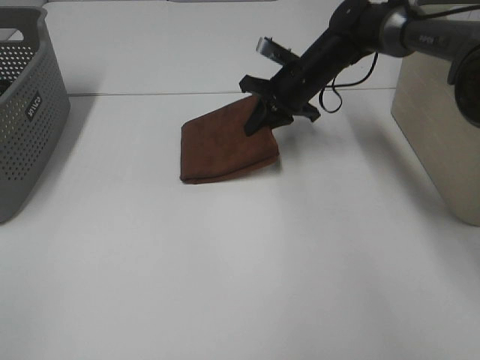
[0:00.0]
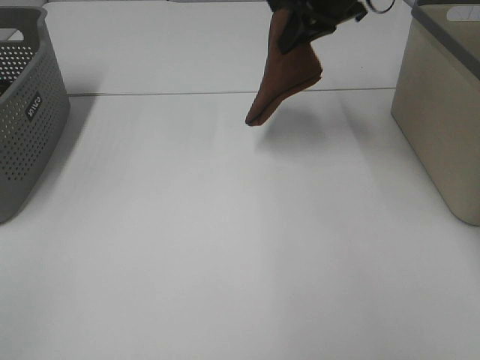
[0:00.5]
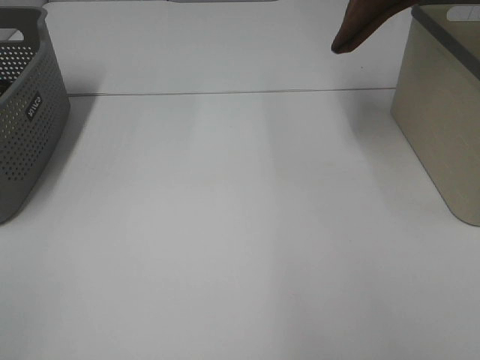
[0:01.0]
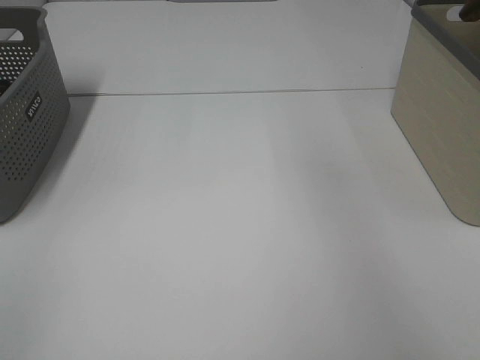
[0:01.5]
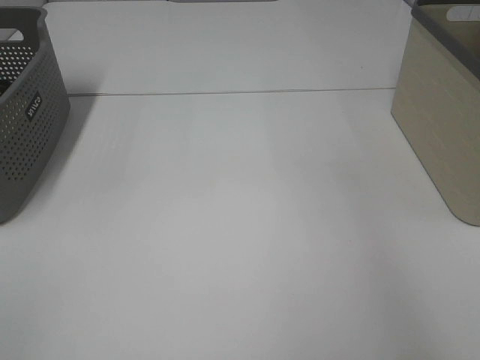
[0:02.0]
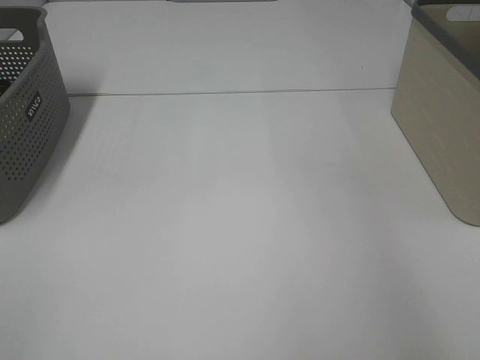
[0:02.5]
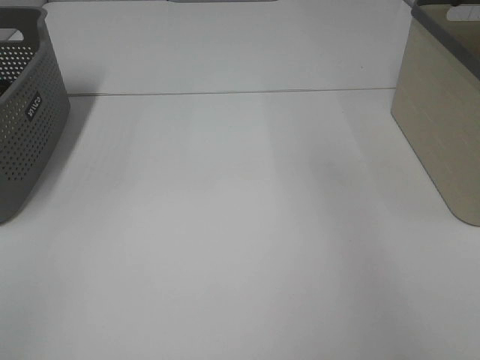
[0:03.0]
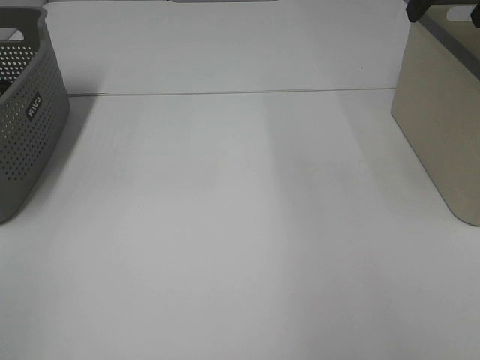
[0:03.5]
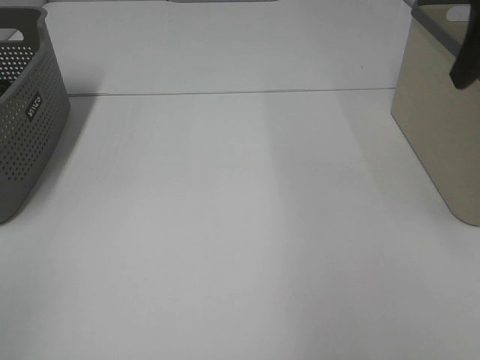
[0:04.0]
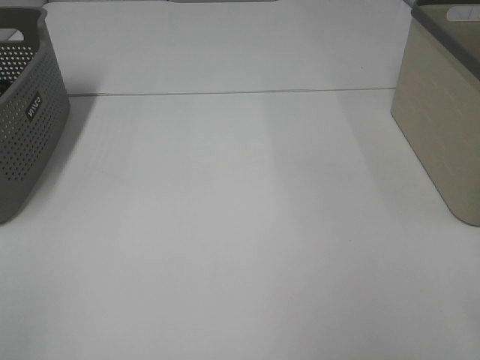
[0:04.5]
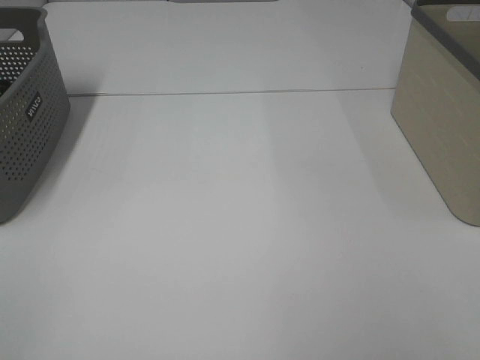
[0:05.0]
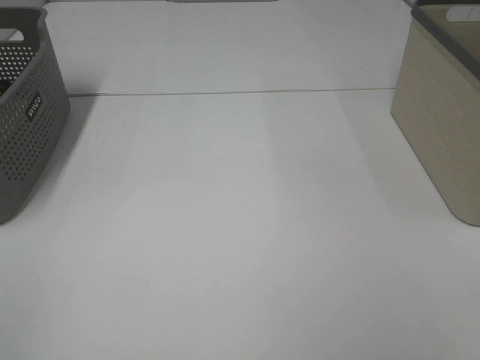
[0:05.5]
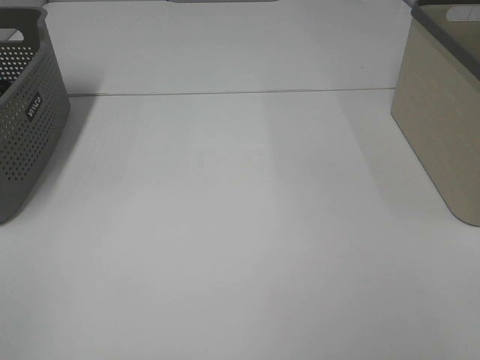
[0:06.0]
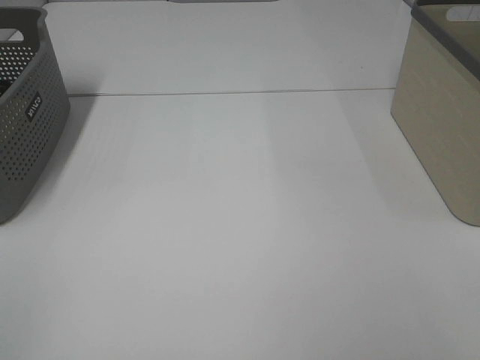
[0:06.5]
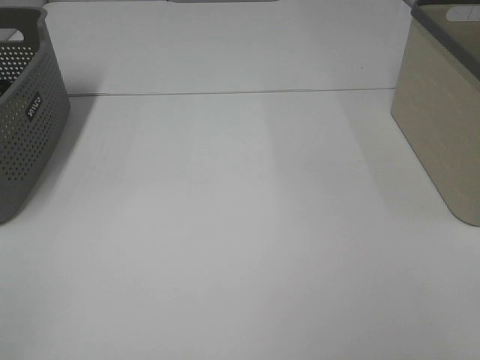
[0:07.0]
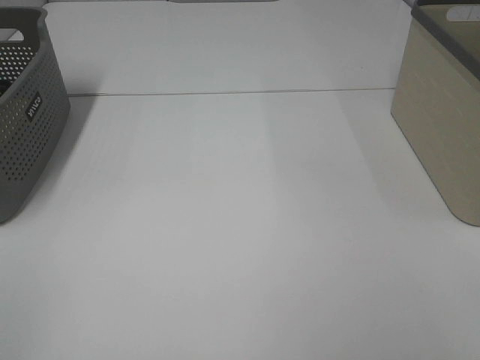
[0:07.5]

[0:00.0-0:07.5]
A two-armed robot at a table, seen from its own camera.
Step, 0:00.0 to 0:02.5: Right hand: place the brown towel in right basket.
0:00.0 to 0:02.0: The right gripper moves to the right and upward, roughly 35 cm.
0:02.0 to 0:04.0: The right gripper is displaced backward and to the left by roughly 15 cm, and opens up.
0:04.0 to 0:05.5: The right gripper is displaced backward by approximately 25 cm.
0:05.5 to 0:07.5: The two grippers keep their place.

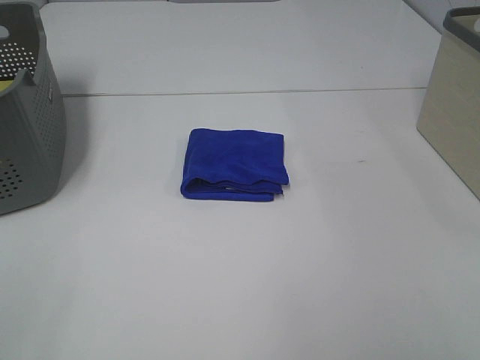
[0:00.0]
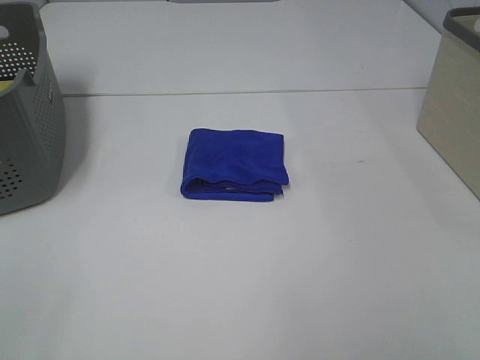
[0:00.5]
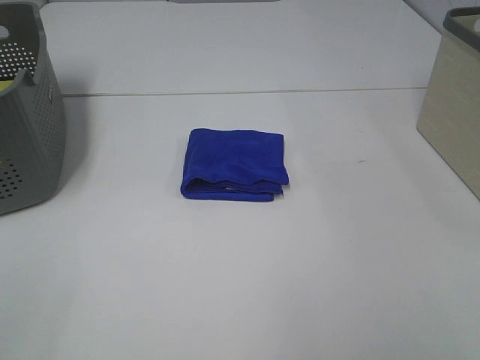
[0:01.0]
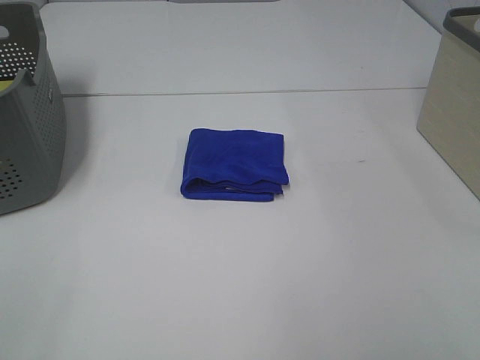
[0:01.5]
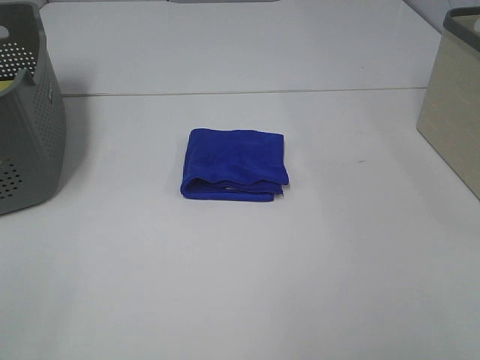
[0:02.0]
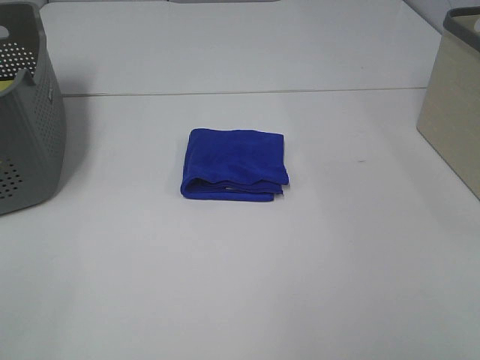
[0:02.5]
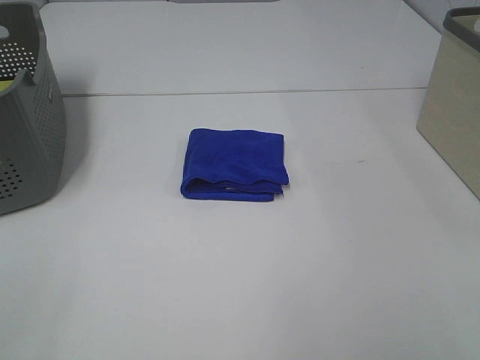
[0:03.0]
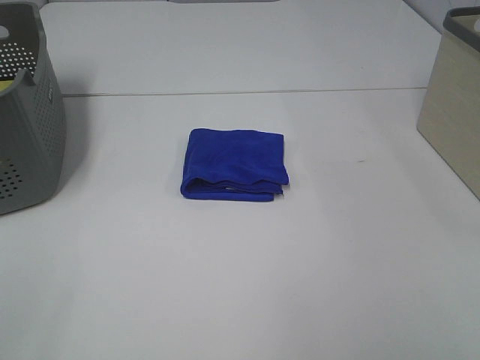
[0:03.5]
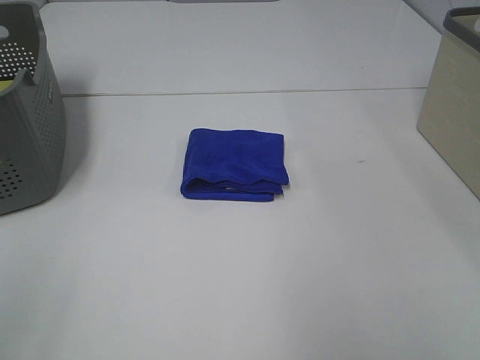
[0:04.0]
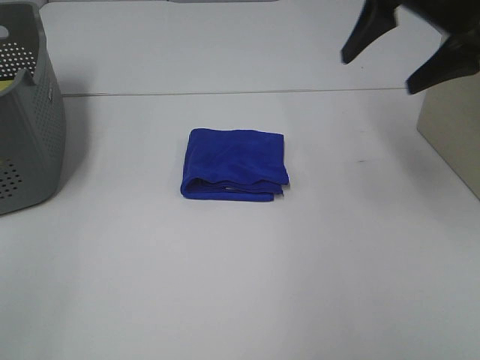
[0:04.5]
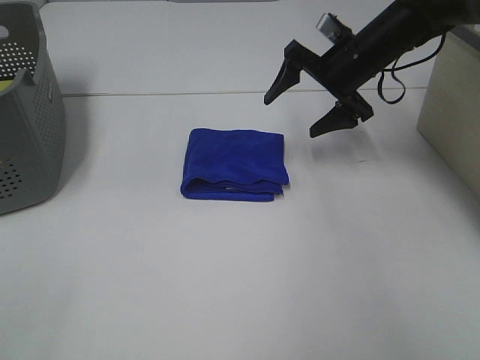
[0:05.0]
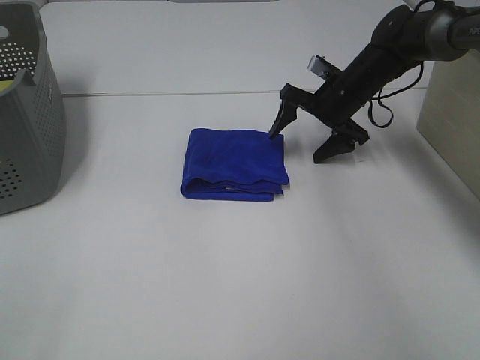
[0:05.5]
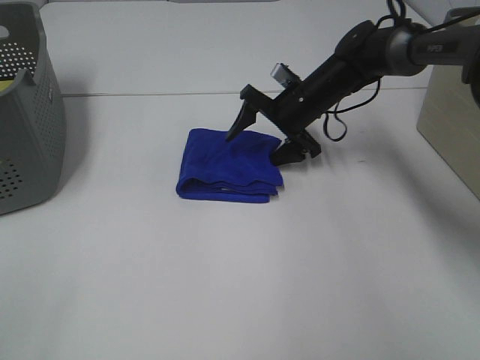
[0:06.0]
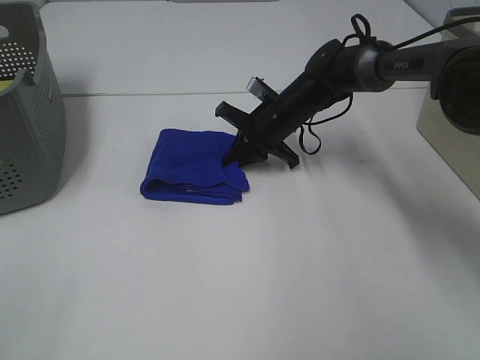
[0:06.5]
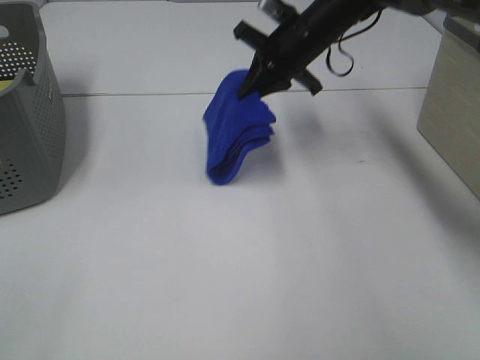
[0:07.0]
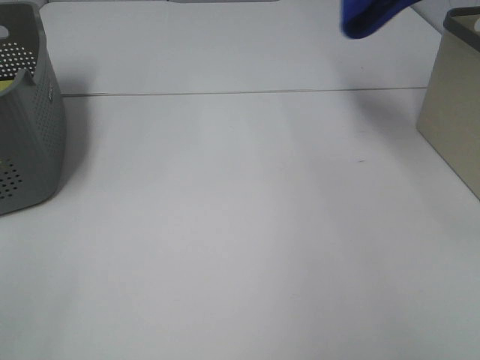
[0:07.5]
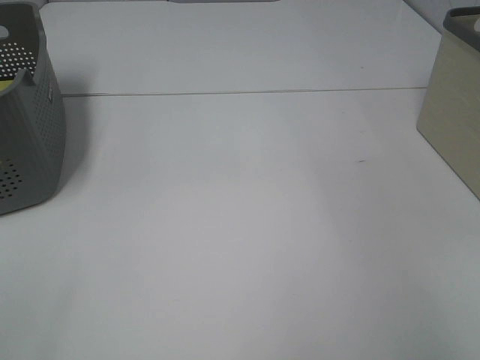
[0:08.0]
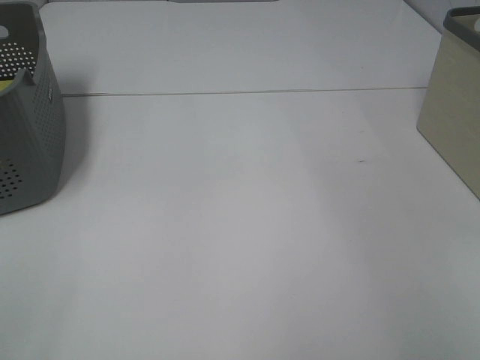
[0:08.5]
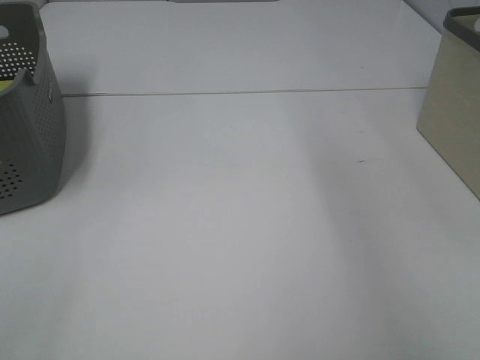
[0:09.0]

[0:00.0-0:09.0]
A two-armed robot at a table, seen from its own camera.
Step, 0:00.0 to 0:06.0: Right hand: grab the folded blue towel.
Step, 0:06.5 to 0:08.5: Right hand: place the blue towel in right basket.
0:00.0 to 0:02.0: The two grippers keep their place.
0:02.0 to 0:04.5: The right gripper moves forward, some 35 cm.
0:04.5 to 0:07.0: The right gripper shifts some 20 cm forward, to the left and downward, and closes up.
0:07.0 to 0:09.0: The right gripper travels to the right and upward by roughly 30 cm, and opens.

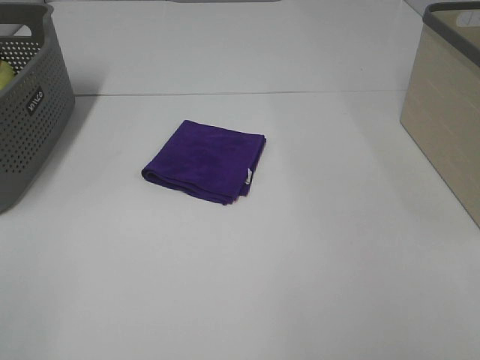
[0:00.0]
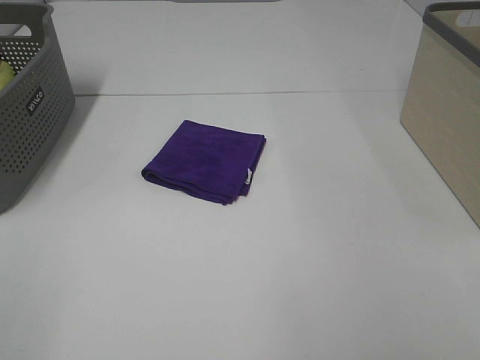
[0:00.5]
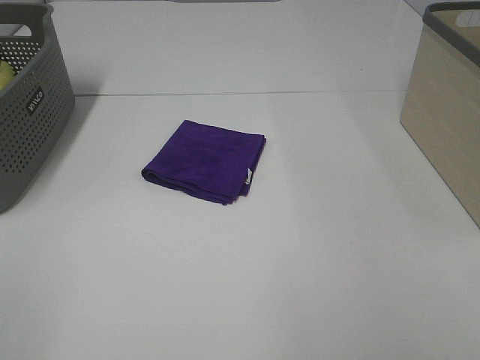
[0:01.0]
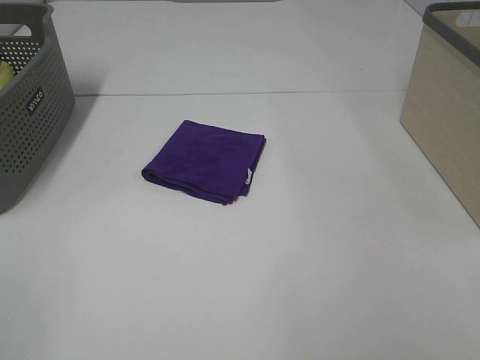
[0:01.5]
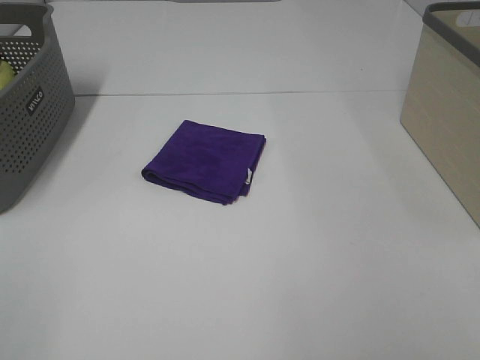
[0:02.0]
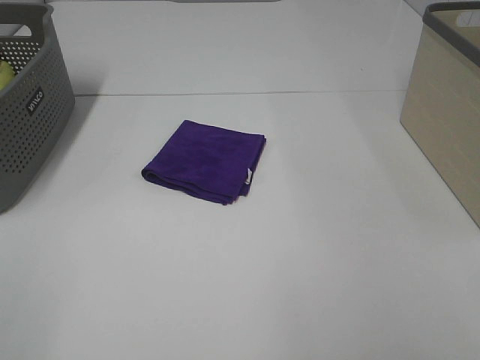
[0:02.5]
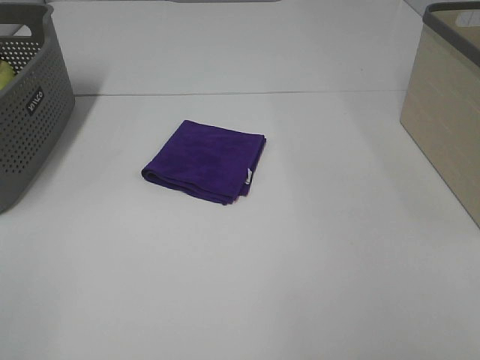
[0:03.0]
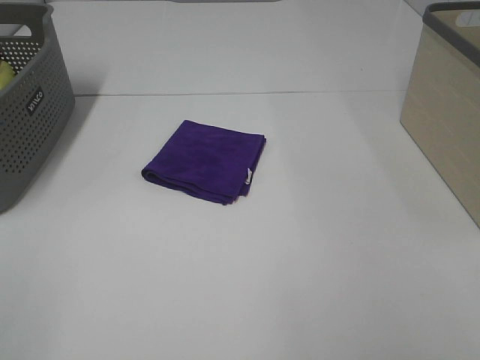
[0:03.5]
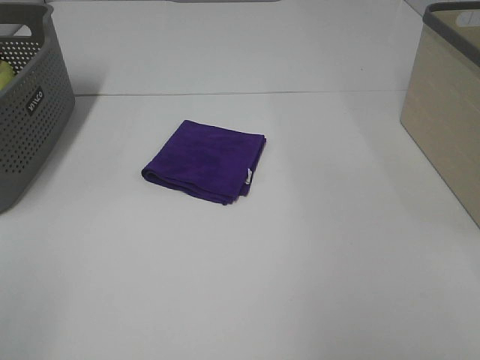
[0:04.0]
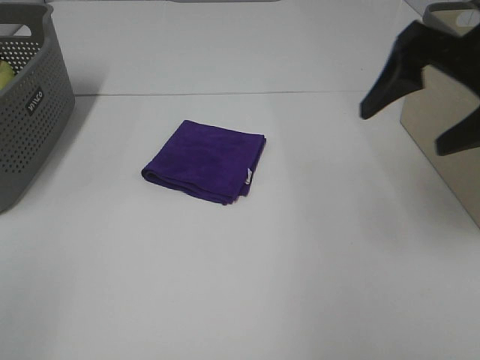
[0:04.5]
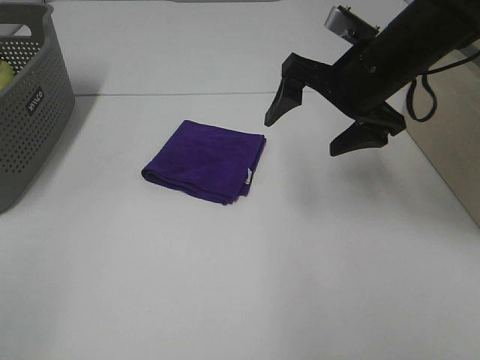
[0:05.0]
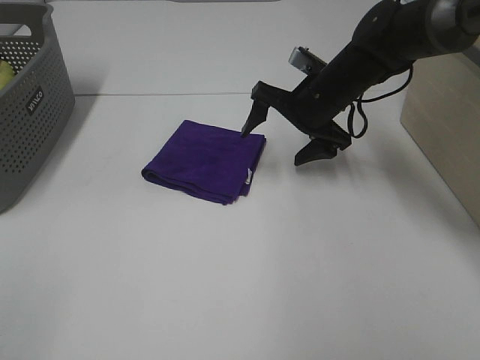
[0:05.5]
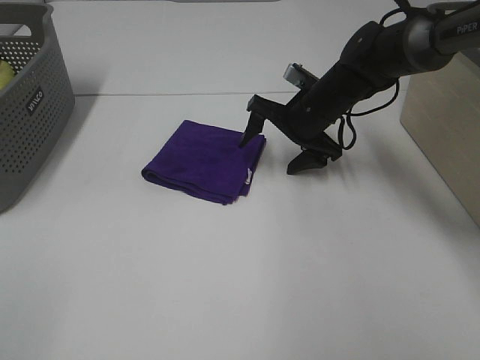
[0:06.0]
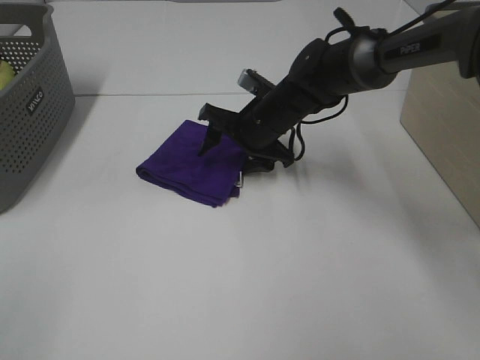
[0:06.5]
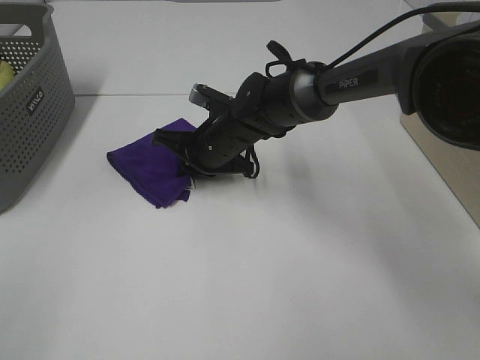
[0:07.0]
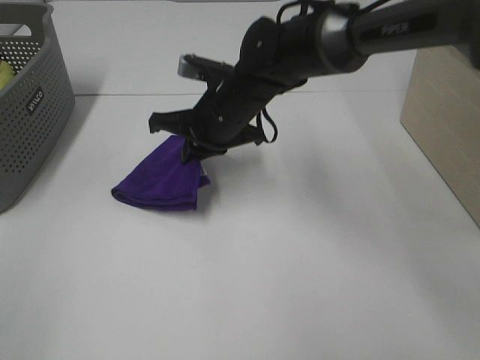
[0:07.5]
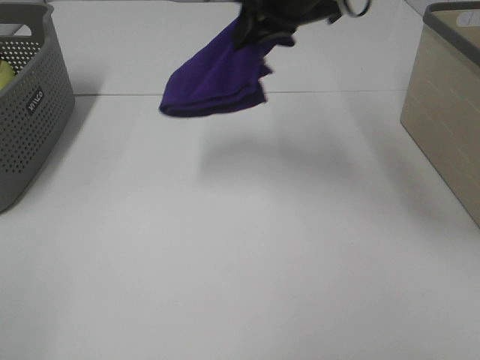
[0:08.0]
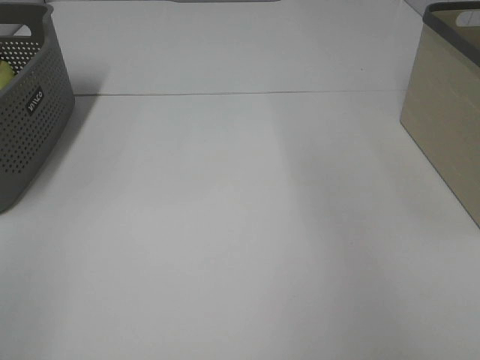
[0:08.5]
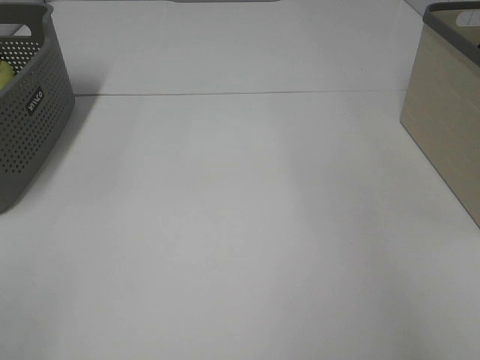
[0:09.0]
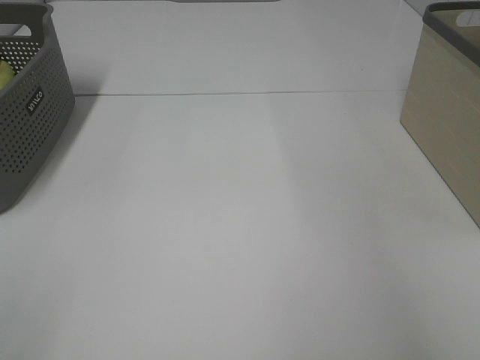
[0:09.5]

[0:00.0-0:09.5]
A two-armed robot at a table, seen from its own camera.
Step, 0:00.0 to 0:06.5: Right hand: grab the folded purple towel.
Step, 0:07.0 to 0:09.5: Right hand: place the purple towel in right basket.
0:00.0 to 0:02.0: Neither gripper changes place.
0:04.0 to 0:05.5: The right gripper is displaced forward, downward and to the left by roughly 40 cm.
0:05.5 to 0:07.5: The right gripper travels to the left by approximately 15 cm, and closes.
0:07.5 to 0:09.5: The right gripper is displaced to the right and upward by roughly 50 cm, and opens.
